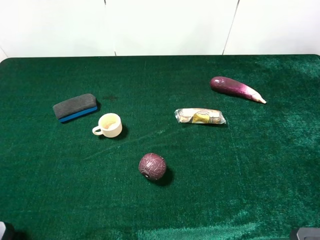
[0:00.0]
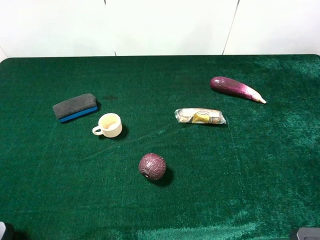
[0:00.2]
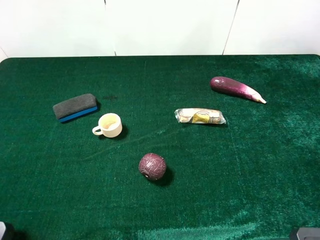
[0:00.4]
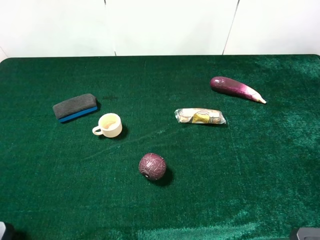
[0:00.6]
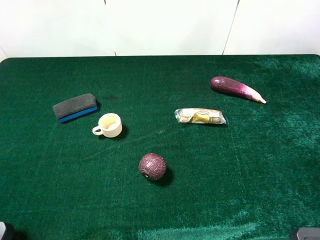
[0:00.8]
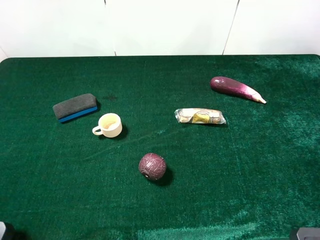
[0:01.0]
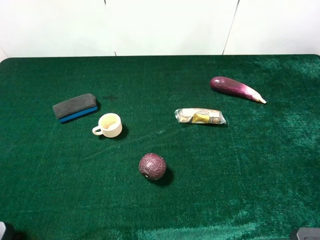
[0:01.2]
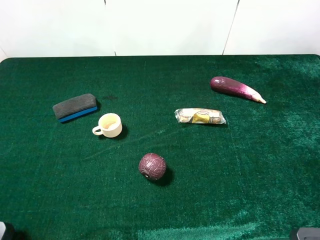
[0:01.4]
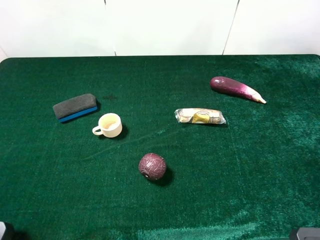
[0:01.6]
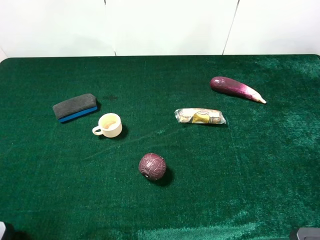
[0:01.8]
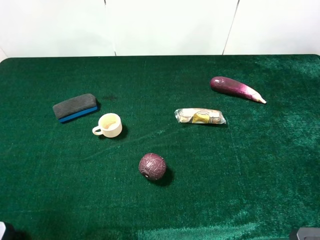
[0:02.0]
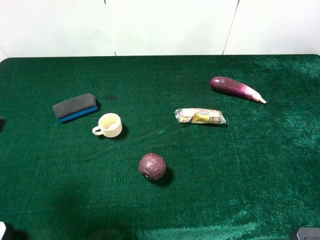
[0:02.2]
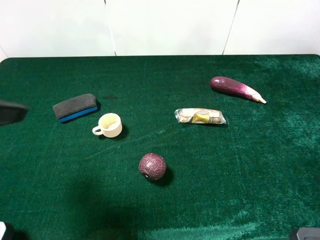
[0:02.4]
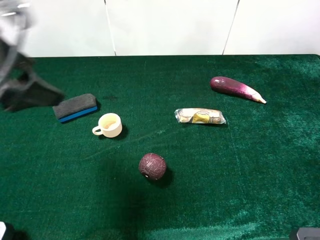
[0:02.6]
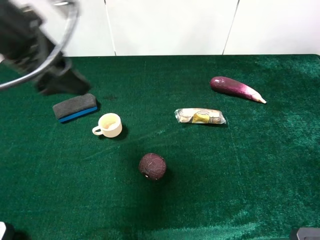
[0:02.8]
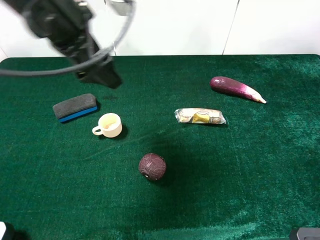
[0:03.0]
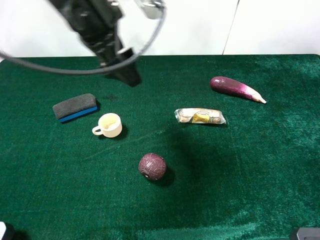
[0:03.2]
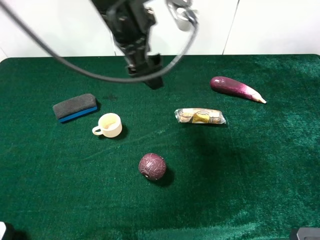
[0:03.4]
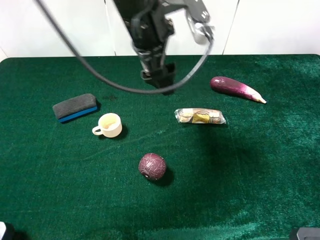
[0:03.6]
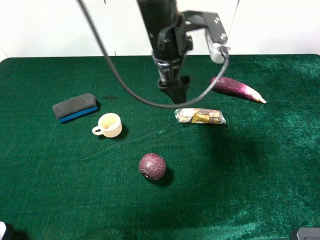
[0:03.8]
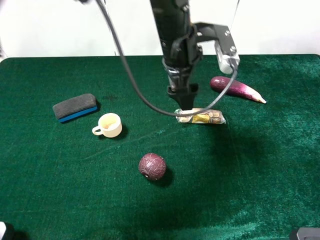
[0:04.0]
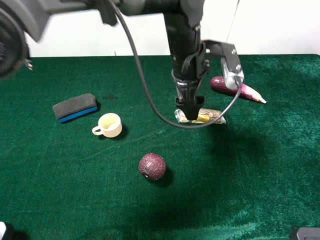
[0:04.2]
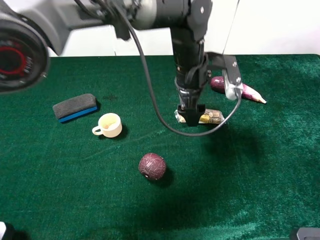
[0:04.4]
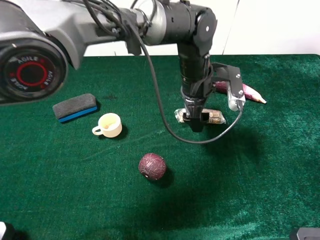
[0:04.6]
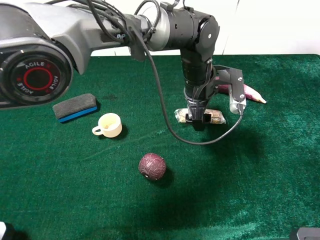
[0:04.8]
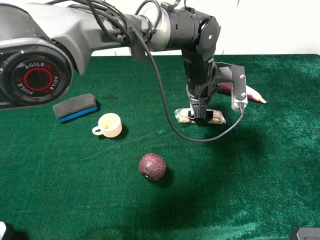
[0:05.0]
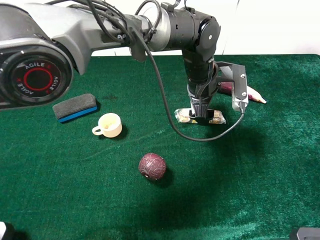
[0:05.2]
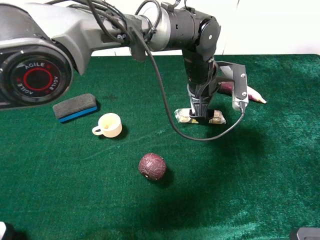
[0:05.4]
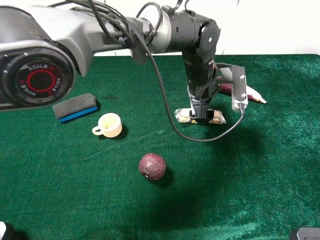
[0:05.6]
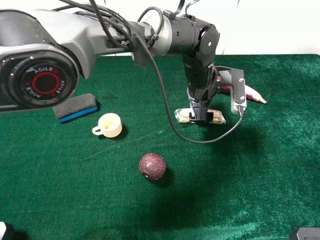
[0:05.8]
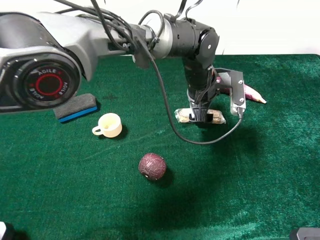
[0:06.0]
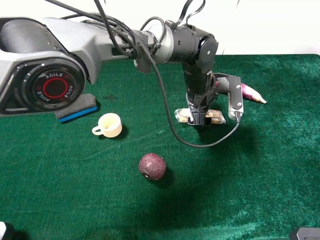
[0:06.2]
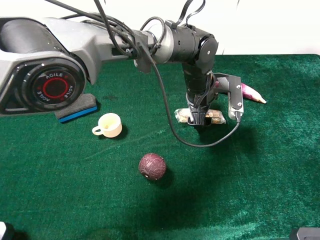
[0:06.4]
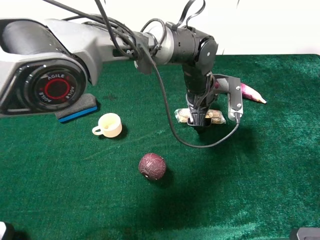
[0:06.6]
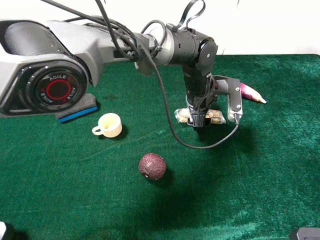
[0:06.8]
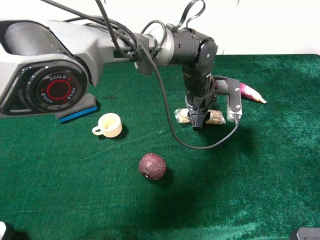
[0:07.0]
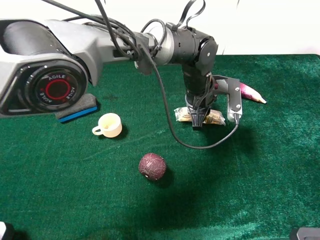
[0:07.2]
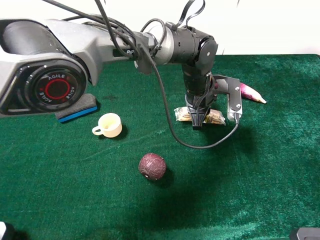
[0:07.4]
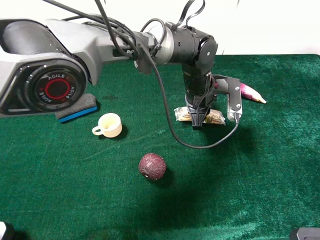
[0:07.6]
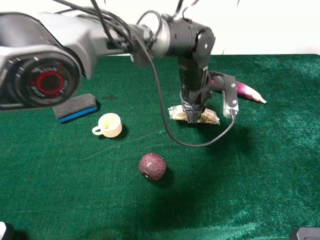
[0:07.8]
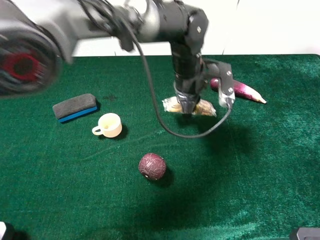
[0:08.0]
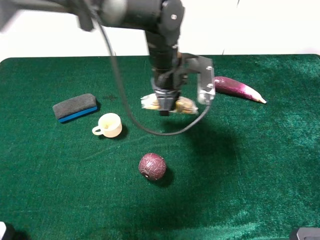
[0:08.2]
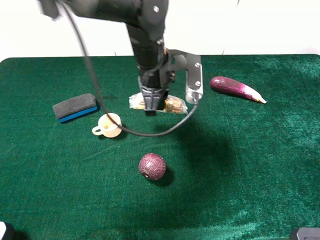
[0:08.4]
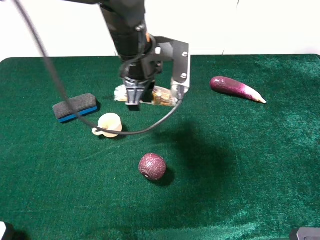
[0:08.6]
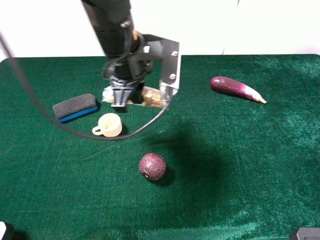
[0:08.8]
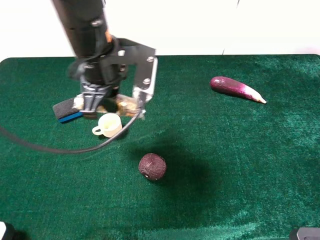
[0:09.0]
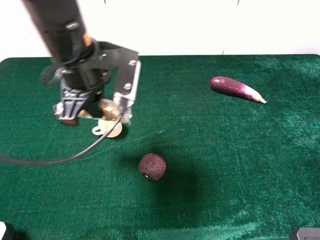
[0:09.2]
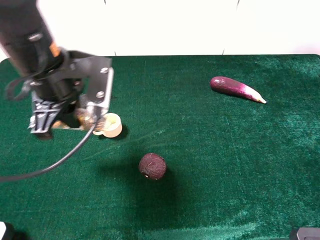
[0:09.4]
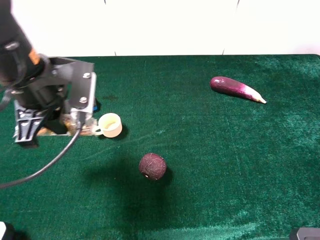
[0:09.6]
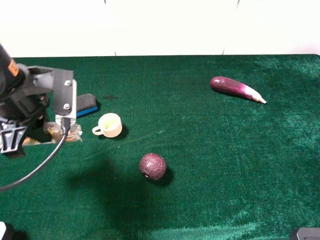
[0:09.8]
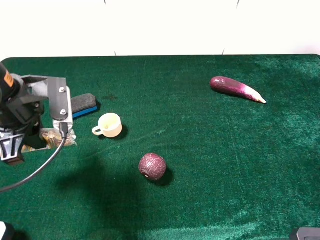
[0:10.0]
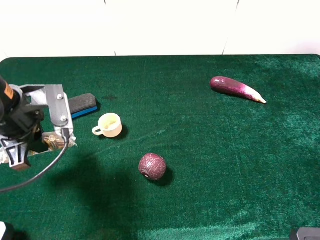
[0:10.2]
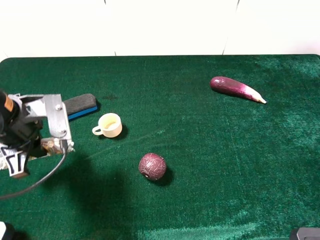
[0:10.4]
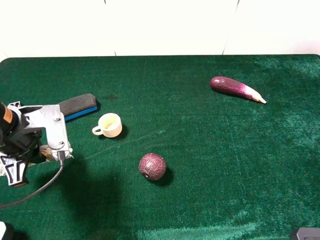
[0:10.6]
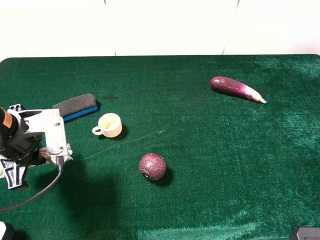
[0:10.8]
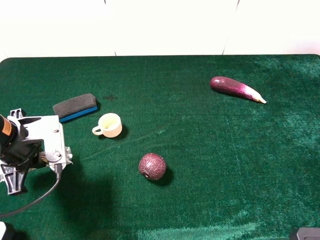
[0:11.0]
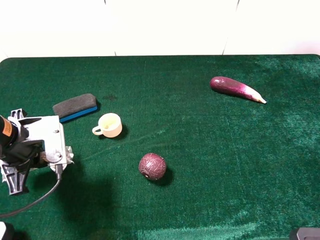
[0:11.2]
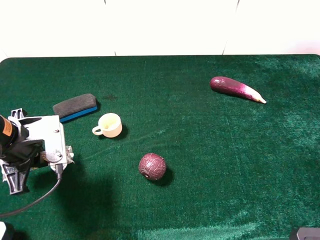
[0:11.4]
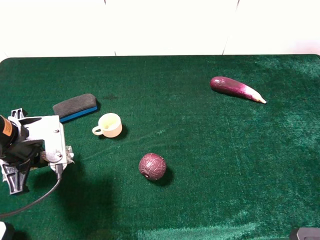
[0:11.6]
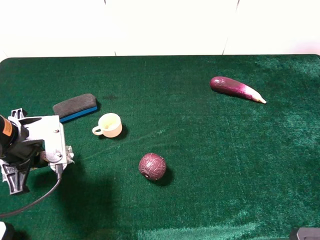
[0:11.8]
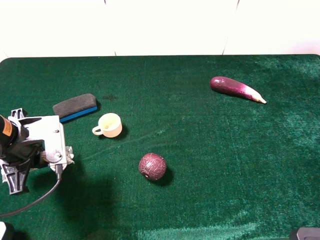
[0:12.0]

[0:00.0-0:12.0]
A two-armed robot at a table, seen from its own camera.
Task of the whole recording: the gripper move the object.
Step, 0:00.0 to 0:07.2: Grasp the chocolate with the left gripper.
0:00.0 to 0:01.6: Both grippers stay put.
0:01.6 to 0:03.0: The left gripper travels forward and to the right by approximately 30 cm.
0:03.0 to 0:04.4: The left gripper is displaced to the right and downward by about 25 cm.
0:04.4 to 0:06.0: The left gripper moves some 5 cm.
0:06.0 to 0:07.6: The left gripper closes its fingers.
0:07.6 to 0:09.0: The left gripper is displaced to the left, upward and backward by about 25 cm.
0:09.0 to 0:10.4: The left gripper heads to the left, backward and downward, covering some 20 cm.
0:10.4 to 0:12.0: The grippers make only small movements.

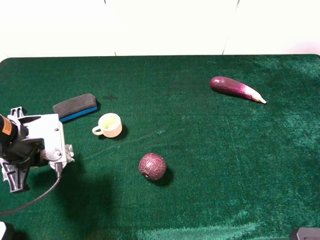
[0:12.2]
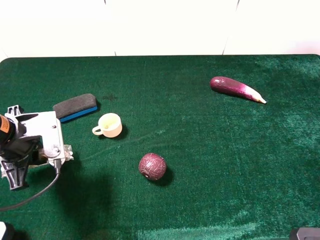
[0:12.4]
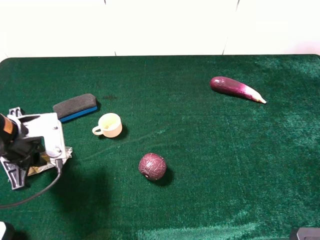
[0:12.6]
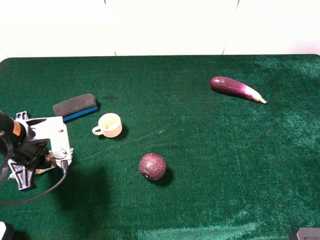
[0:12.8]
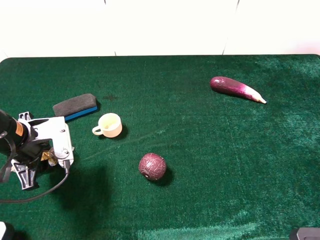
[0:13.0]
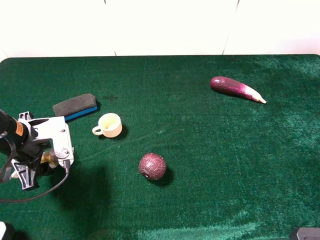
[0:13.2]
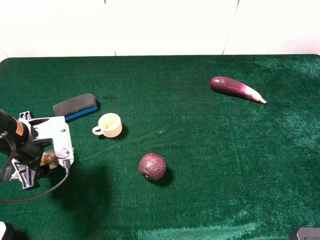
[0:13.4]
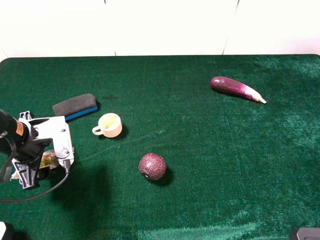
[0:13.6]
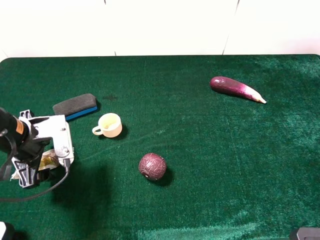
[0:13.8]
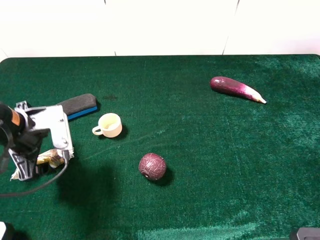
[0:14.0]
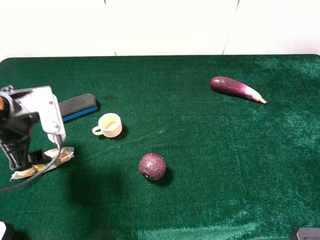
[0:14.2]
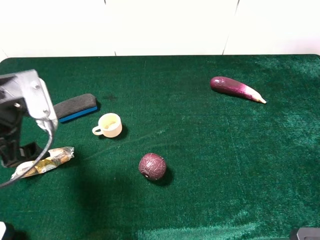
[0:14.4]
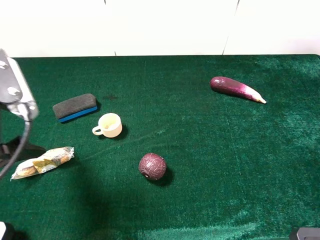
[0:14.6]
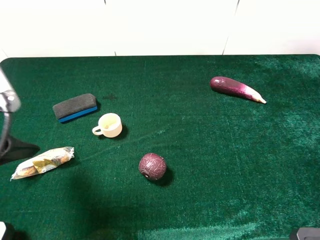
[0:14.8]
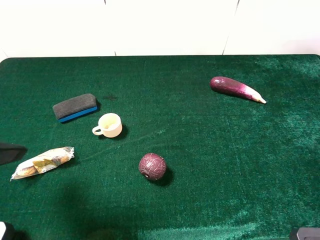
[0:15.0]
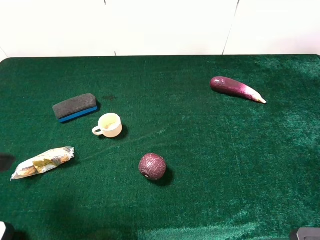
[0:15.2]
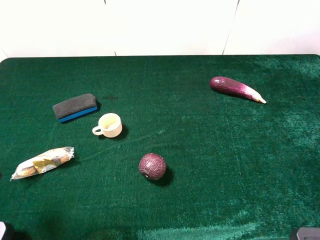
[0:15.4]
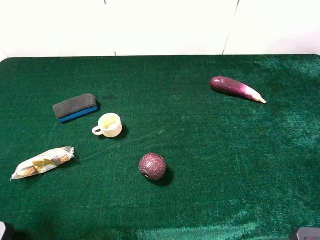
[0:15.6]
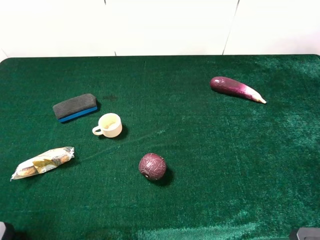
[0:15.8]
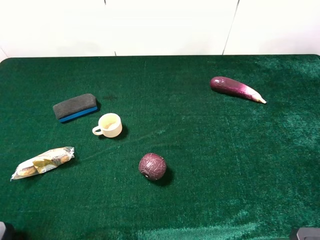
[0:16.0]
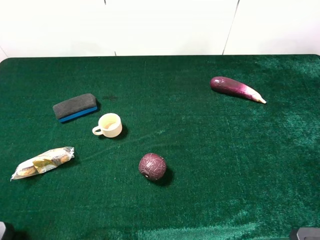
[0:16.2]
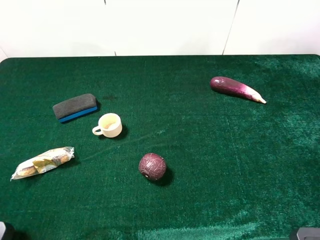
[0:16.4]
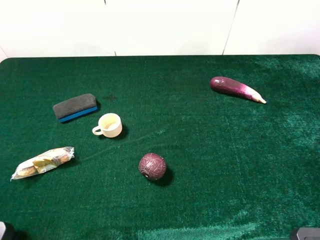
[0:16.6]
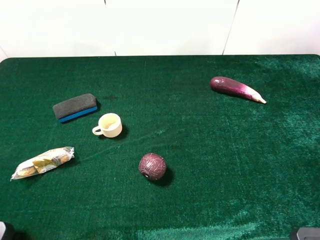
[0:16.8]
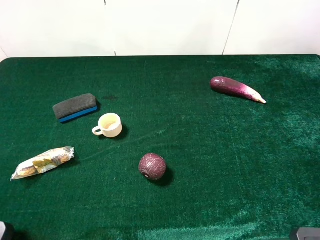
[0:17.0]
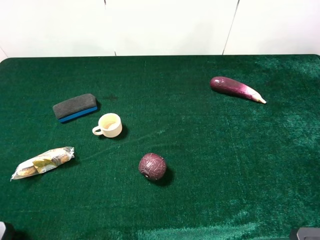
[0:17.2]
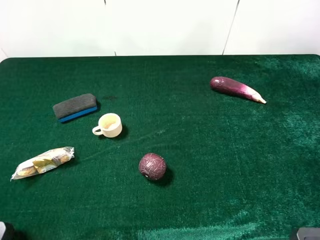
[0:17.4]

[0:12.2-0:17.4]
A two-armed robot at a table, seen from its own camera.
Task of the whole recording: the gripper move the object.
0:12.2 to 0:14.0: The left gripper opens up.
0:14.0 to 0:15.6: The left gripper goes approximately 20 cm upward and backward.

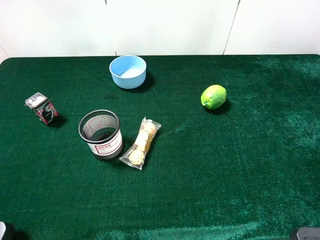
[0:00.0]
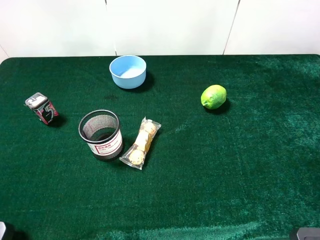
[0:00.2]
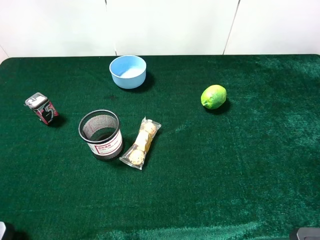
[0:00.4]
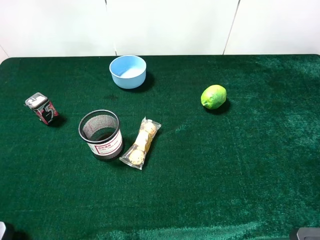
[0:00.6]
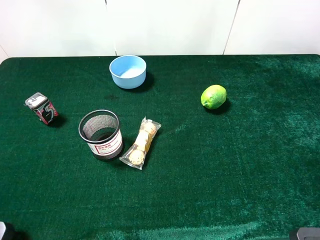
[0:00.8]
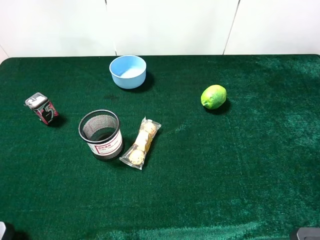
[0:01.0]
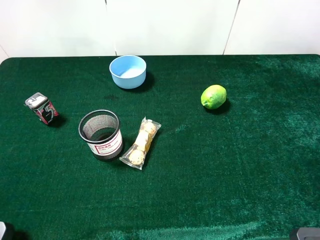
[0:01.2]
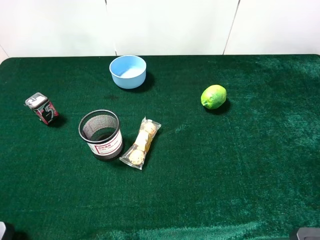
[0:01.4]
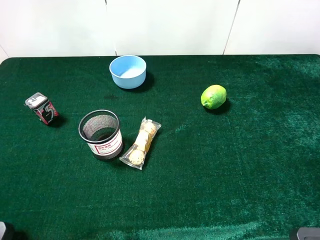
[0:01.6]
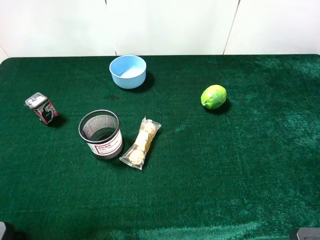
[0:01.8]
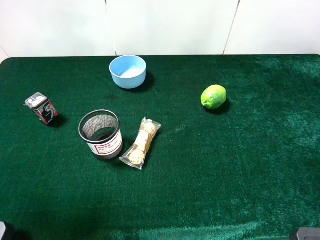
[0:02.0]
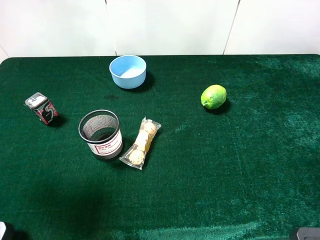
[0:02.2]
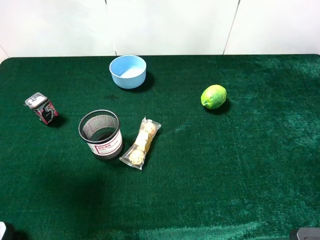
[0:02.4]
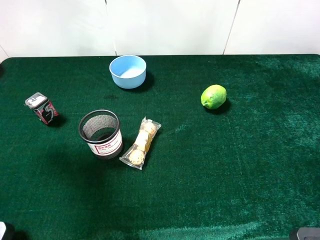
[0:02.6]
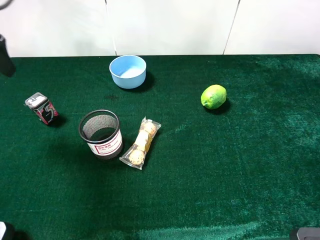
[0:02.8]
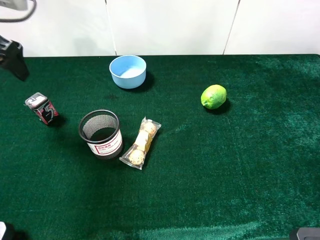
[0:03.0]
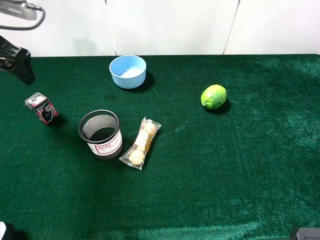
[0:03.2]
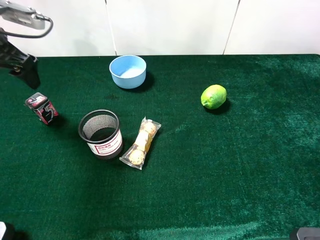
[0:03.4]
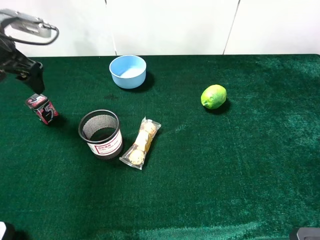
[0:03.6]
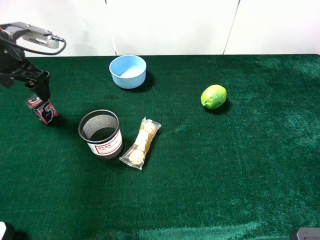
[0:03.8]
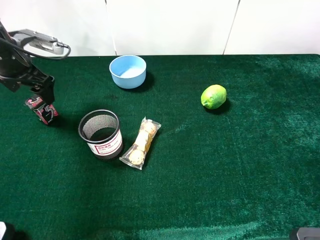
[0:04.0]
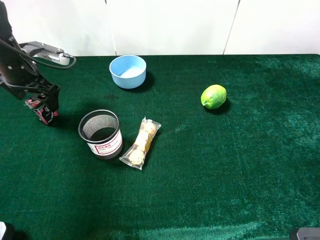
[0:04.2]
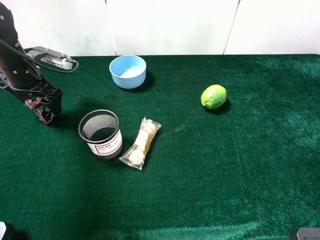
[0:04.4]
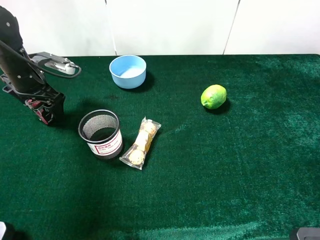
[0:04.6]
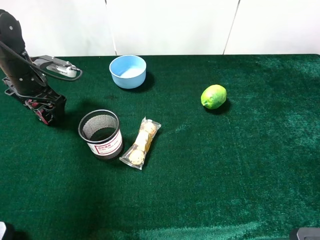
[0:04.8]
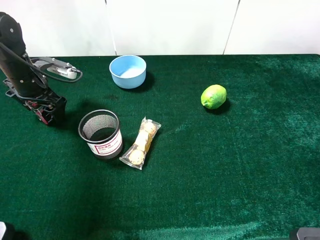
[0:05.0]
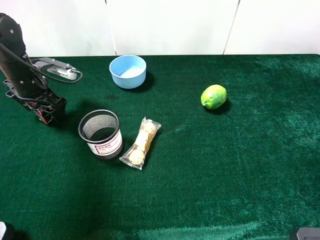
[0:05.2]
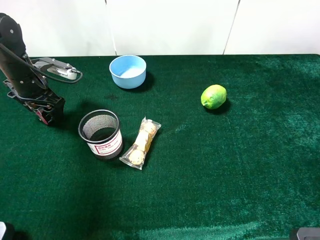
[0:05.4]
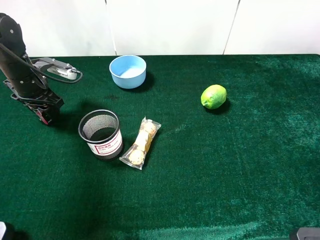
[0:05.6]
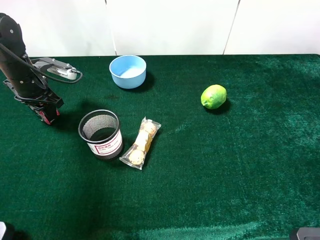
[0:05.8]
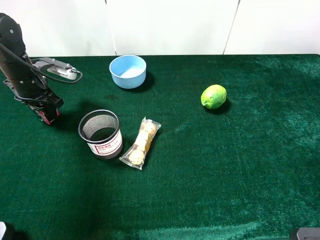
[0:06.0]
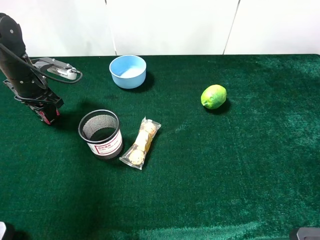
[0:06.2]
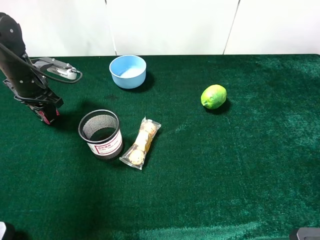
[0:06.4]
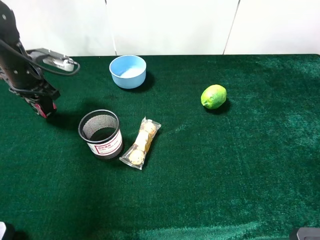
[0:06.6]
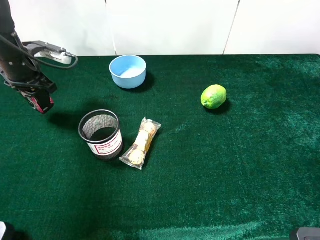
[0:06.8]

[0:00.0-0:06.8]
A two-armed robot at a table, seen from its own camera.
Task of the whole recording: the gripper move the object.
Step, 0:00.0 to 0:06.4: Grasp the square chewing gun with the left gripper.
0:01.4 to 0:02.8: The left gripper heads forward, covering roughly 25 cm.
0:02.8 to 0:04.0: The left gripper moves downward and forward, some 15 cm.
0:04.0 to 0:05.4: The left gripper shifts approximately 5 cm downward.
0:05.4 to 0:06.8: The left gripper closes its fingers.
